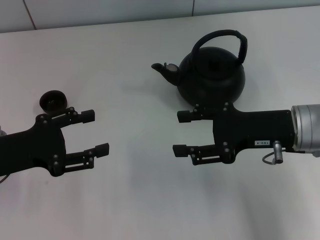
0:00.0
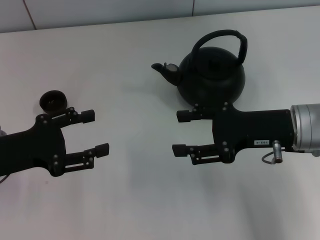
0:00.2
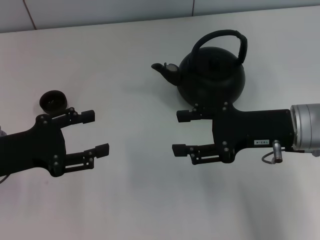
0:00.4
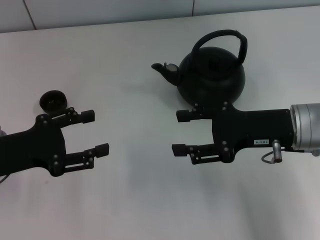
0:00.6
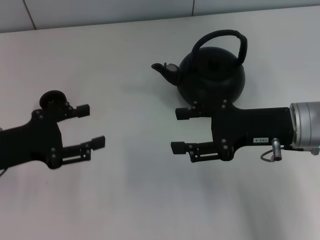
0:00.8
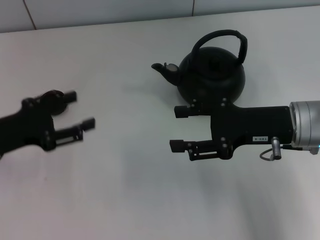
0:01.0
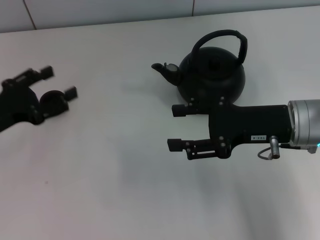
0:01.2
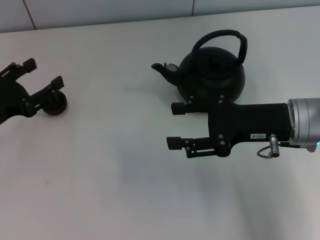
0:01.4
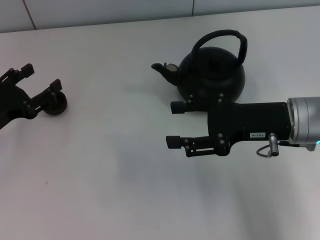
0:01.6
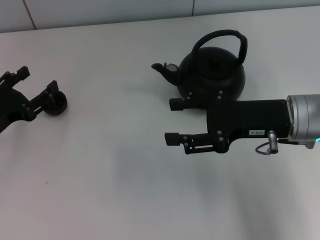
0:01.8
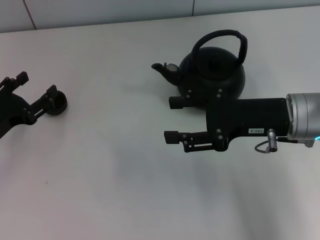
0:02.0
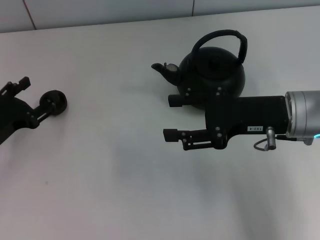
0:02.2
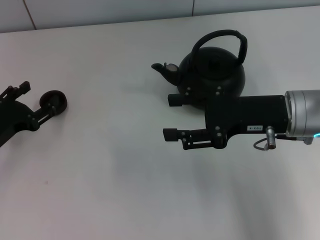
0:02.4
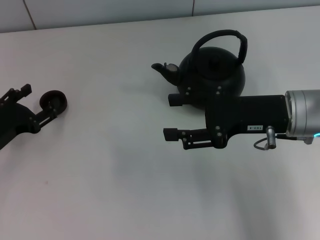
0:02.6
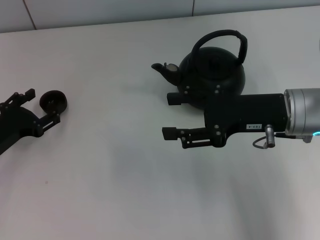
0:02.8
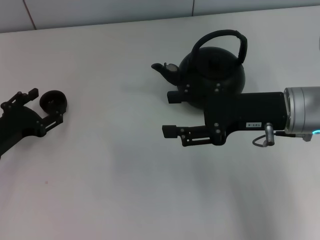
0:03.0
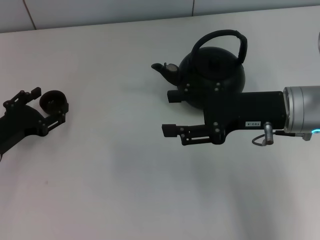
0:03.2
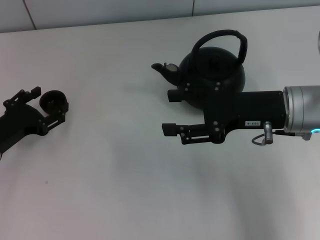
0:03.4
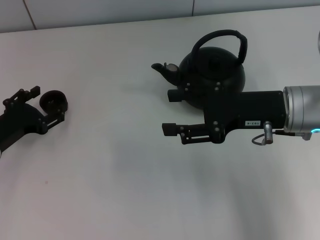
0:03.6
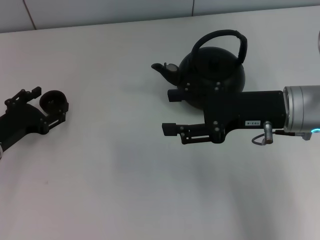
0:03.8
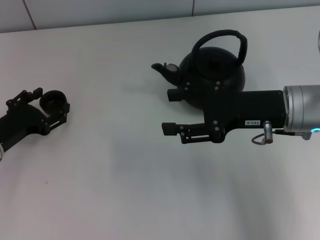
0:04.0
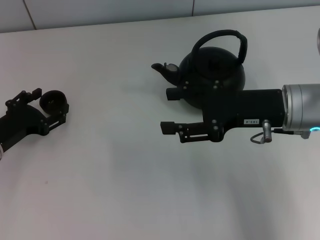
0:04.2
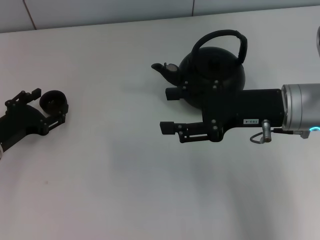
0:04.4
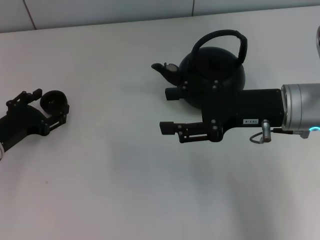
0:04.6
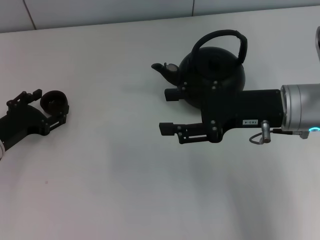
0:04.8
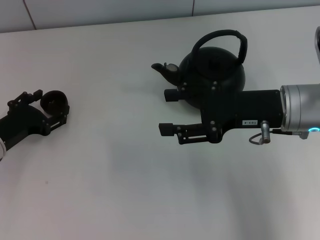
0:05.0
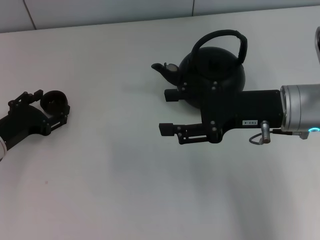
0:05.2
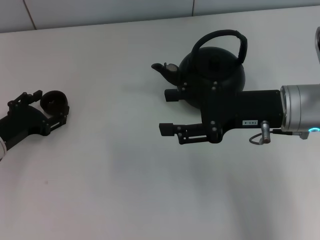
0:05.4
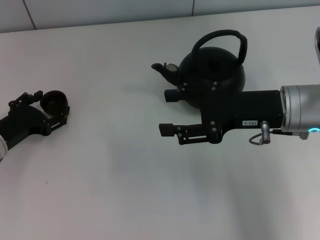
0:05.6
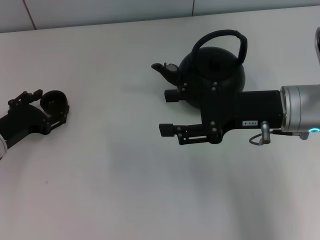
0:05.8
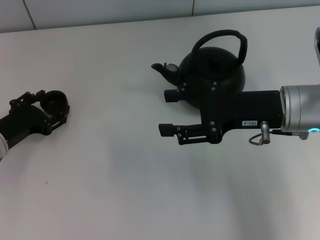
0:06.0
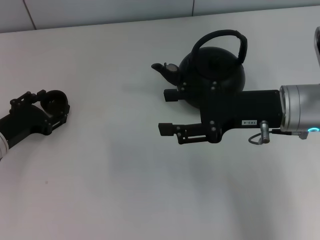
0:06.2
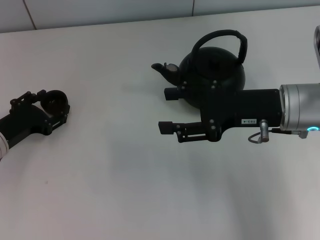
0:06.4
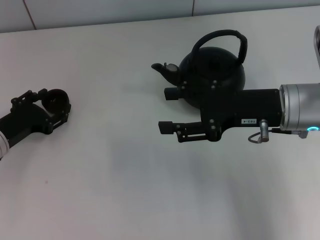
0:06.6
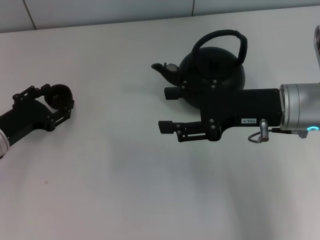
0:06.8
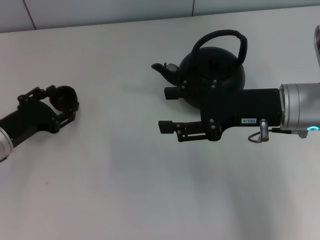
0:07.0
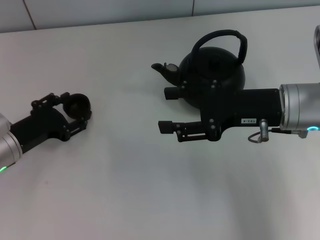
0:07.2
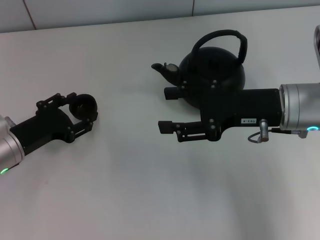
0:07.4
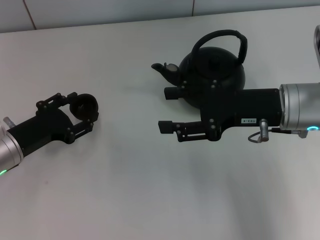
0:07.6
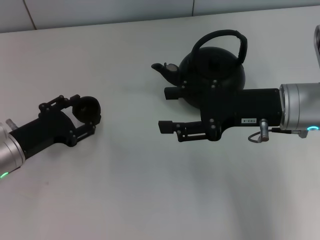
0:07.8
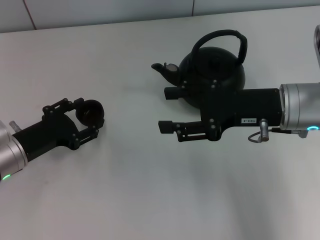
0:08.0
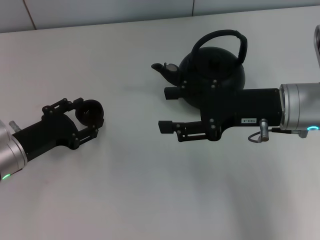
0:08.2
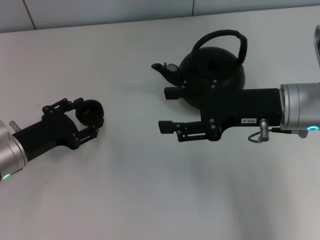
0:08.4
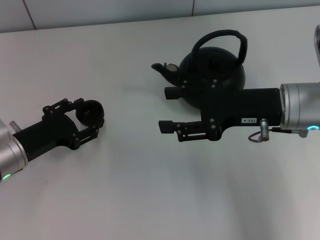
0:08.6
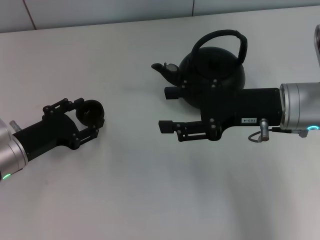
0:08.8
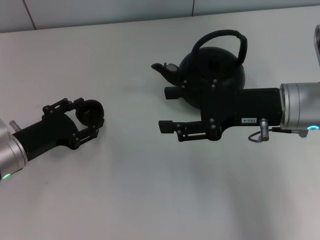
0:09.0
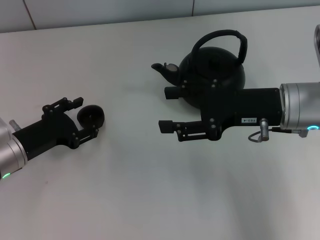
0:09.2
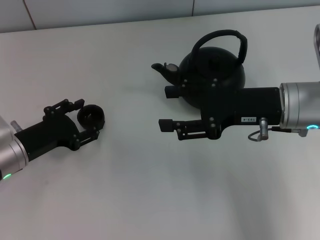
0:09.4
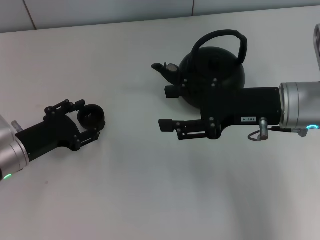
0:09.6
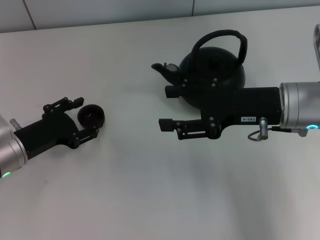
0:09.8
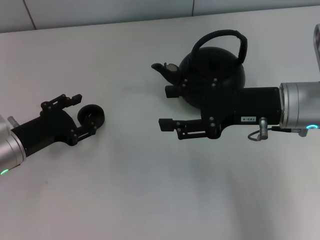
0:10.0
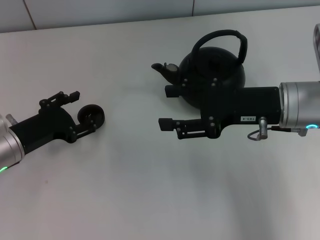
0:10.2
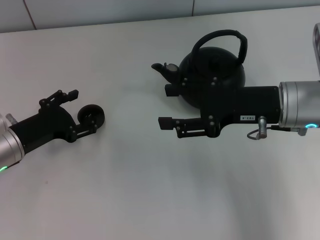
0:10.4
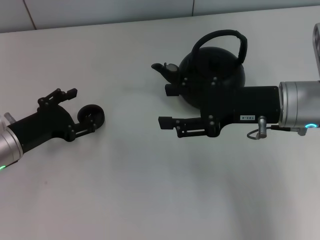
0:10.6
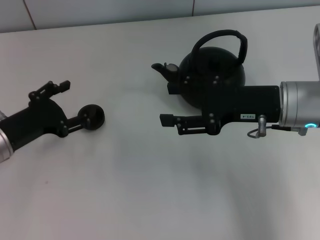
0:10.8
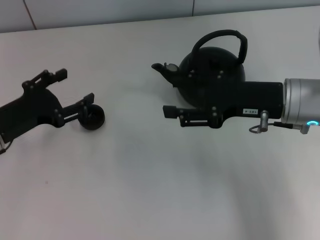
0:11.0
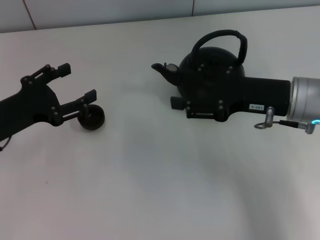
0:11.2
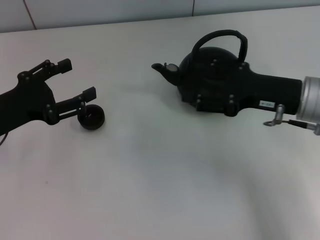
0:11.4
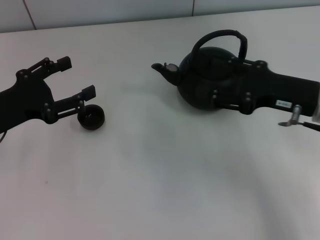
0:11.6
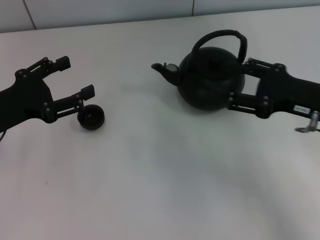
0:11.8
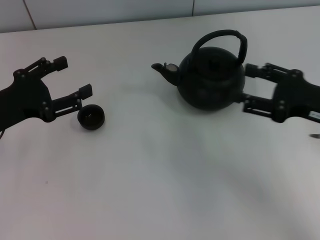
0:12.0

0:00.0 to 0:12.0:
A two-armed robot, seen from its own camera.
Task of the whole recording: Grasp the handle of the teapot with one hand and pour tea into the teacup.
Step, 0:00.0 to 0:07.2: Pick up the teacup with the left gripper.
Step, 0:07.4 to 0:10.0: Place the teacup in the center of view with the left gripper.
0:00.0 to 0:01.6: The left gripper changes place by approximately 5 cm.
0:01.6 to 0:03.0: The grippers make only small movements.
0:03.0 to 0:04.4: Neither gripper changes place.
0:04.4 to 0:06.0: Both grippers stay put.
0:06.0 to 0:07.6: The grippers make only small movements.
0:07.6 to 0:10.4: Neither gripper changes place.
0:10.4 to 0:12.0: The left gripper shifts some 5 cm upward, and opens its fingers; the right gripper goes some 10 cm to the right.

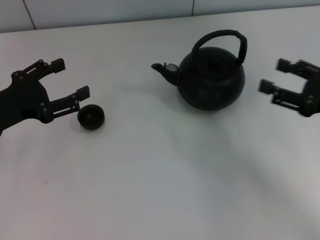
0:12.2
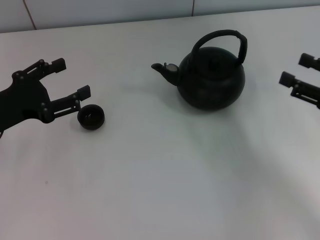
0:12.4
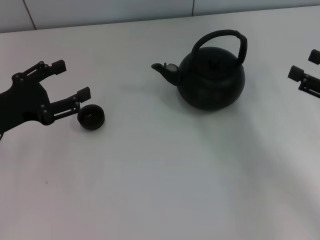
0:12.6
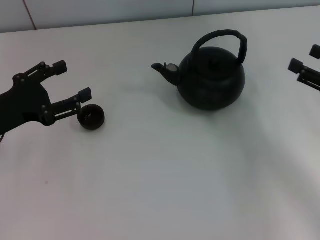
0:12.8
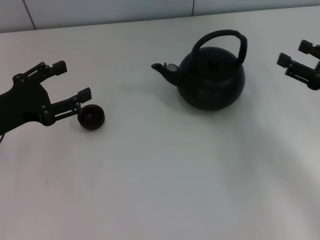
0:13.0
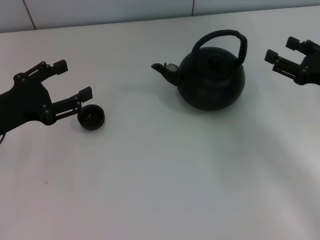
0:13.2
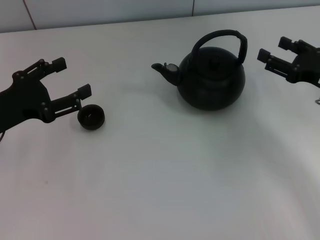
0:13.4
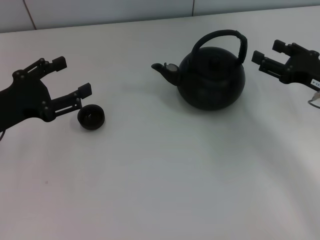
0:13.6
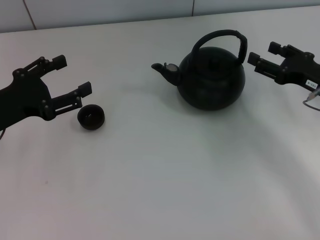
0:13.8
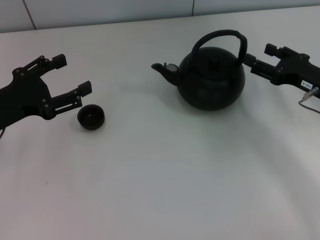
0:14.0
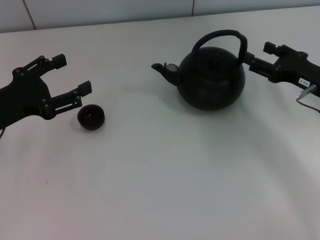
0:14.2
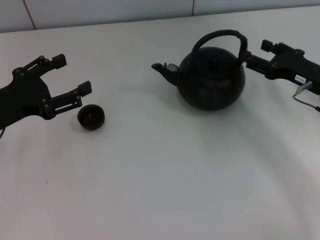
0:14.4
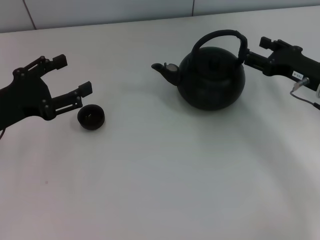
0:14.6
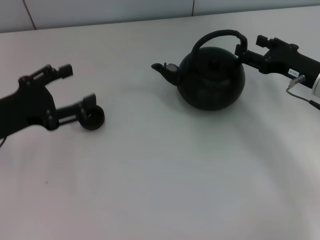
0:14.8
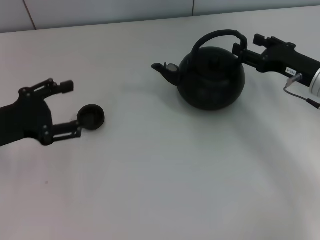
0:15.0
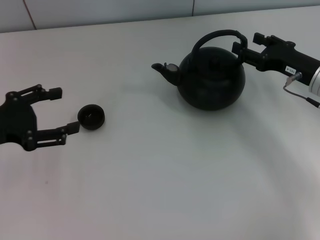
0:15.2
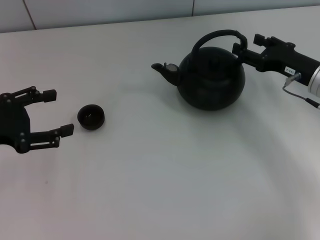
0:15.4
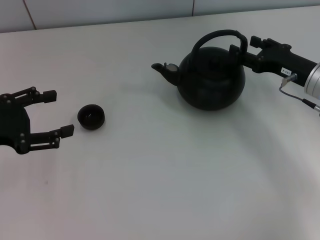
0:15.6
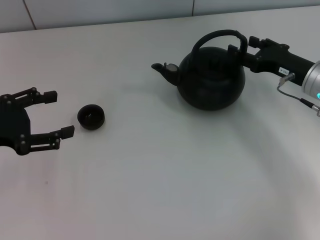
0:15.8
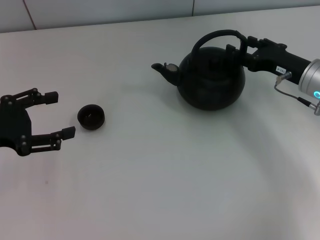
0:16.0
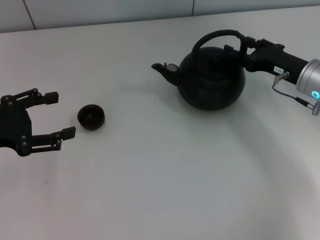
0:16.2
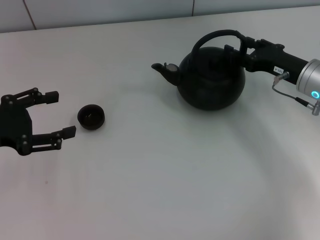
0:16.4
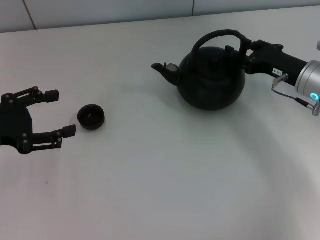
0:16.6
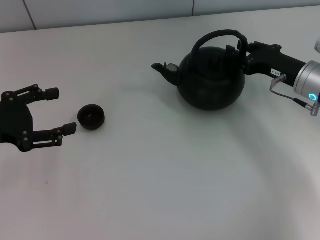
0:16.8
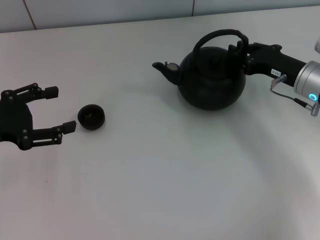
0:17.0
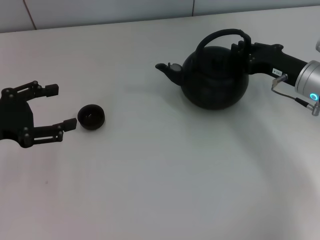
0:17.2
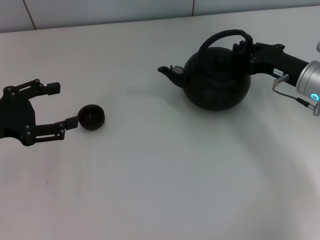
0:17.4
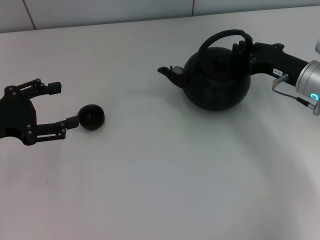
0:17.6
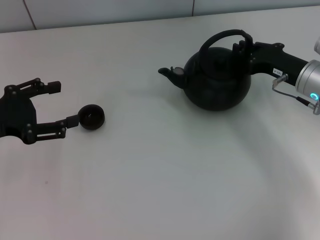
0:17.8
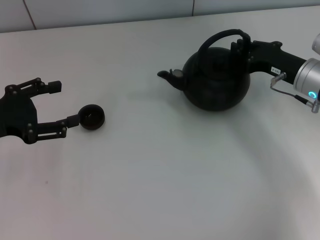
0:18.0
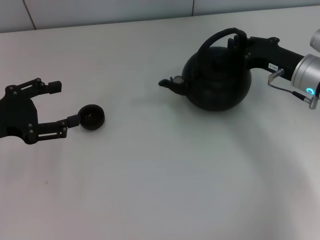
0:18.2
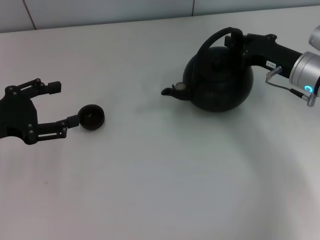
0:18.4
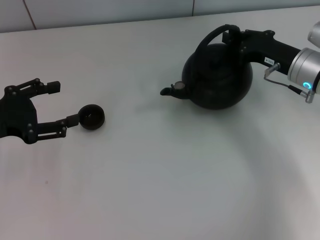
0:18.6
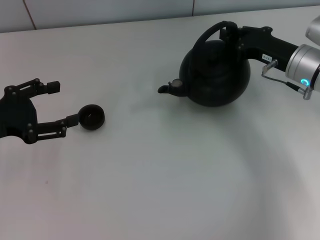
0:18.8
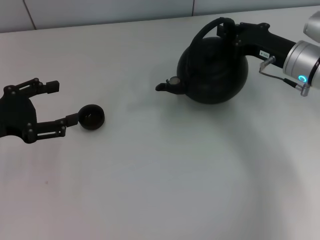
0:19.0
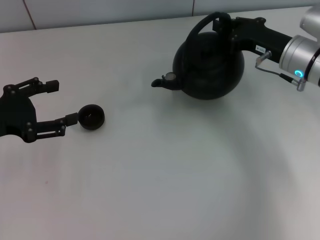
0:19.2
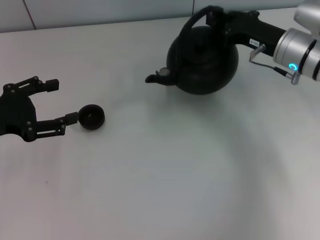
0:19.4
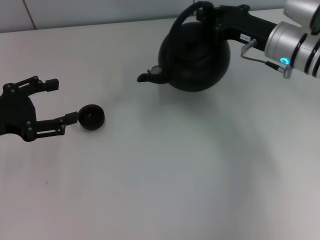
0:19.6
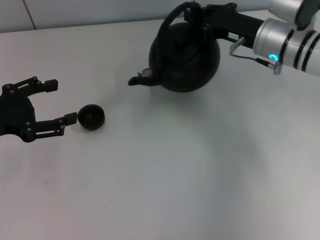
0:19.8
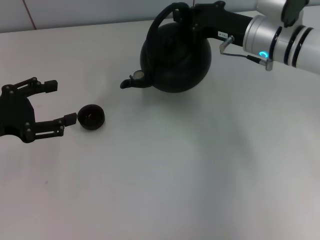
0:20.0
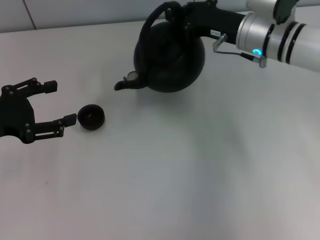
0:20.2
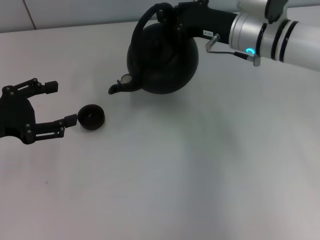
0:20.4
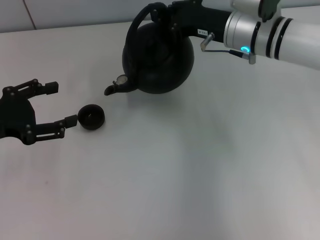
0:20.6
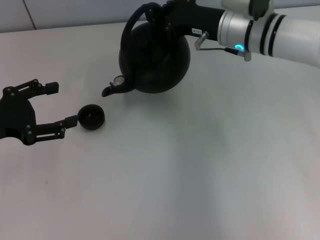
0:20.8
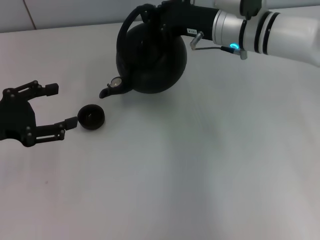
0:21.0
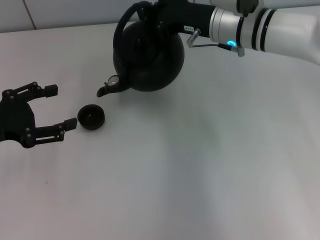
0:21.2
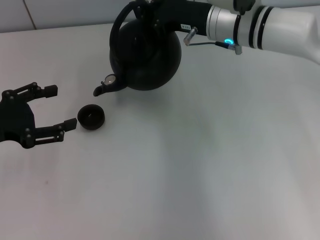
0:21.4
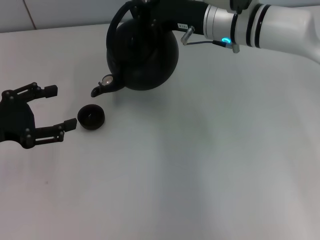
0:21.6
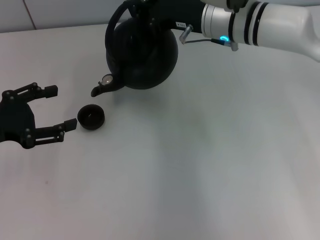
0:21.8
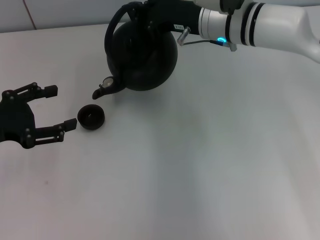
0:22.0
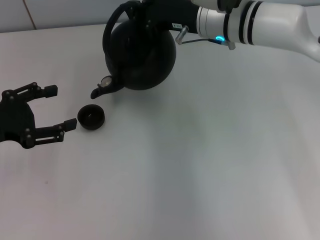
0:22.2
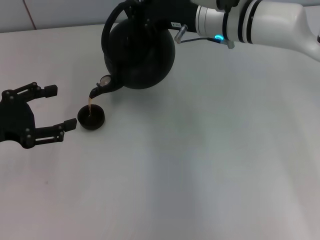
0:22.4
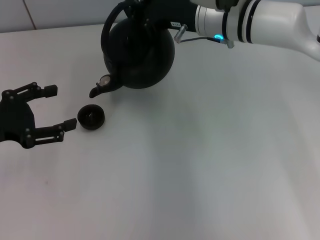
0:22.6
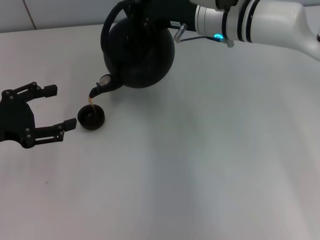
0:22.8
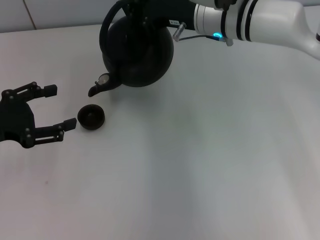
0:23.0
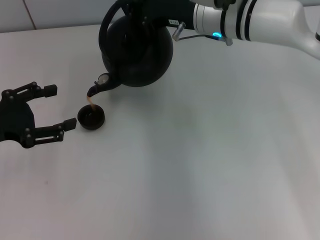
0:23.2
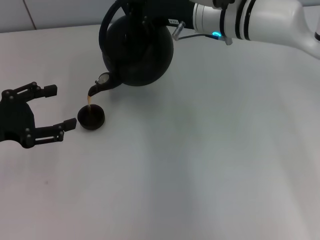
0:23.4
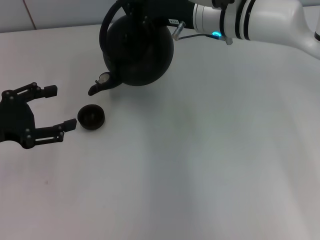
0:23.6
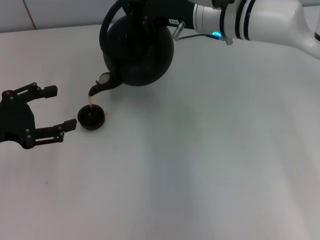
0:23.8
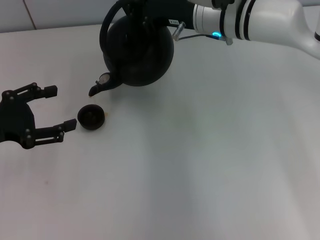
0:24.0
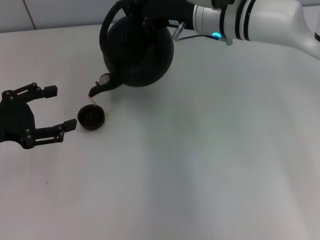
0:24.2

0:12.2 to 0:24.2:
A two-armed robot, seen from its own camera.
Task of the whole recording: Grasp the handle of the teapot with one hand and pour tea into the teacup.
Step, 0:12.2 to 0:19.4: Pick up the teapot with the right gripper.
0:12.2 to 0:13.8: The right gripper is displaced forward by approximately 5 cm.
0:13.8 to 0:16.6: There are only small adjustments of the grippers.
0:16.6 to 0:18.2: The right gripper closes up.
0:18.2 to 0:19.8: The right gripper travels to the left by some 5 cm.
0:19.8 to 0:21.2: The right gripper is displaced to the left by roughly 5 cm.
0:21.2 to 0:22.6: There are only small adjustments of the grippers.
0:22.6 to 0:24.2: The two grippers keep their place.
